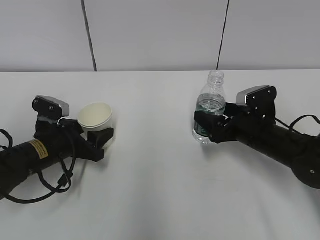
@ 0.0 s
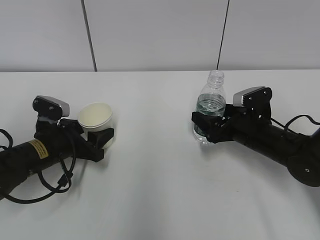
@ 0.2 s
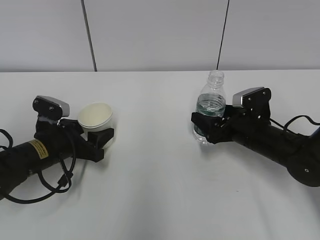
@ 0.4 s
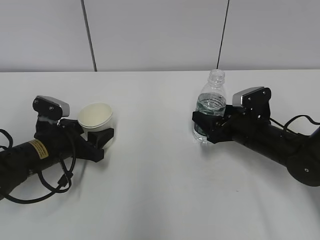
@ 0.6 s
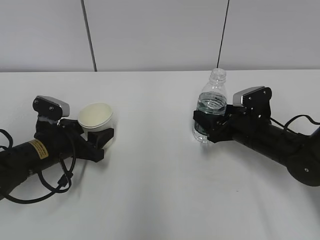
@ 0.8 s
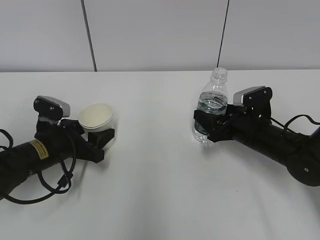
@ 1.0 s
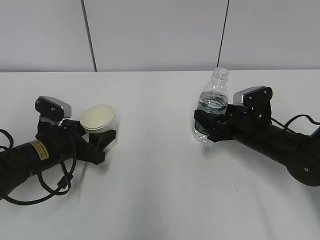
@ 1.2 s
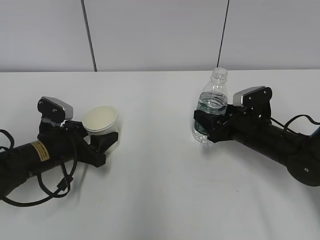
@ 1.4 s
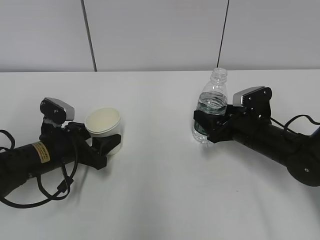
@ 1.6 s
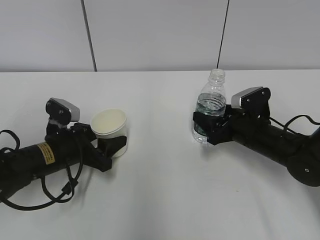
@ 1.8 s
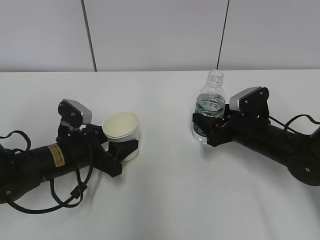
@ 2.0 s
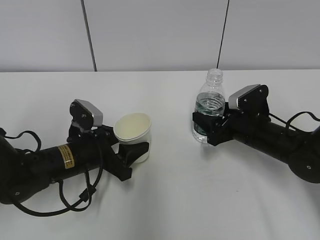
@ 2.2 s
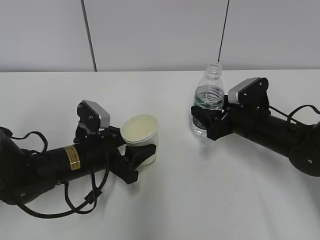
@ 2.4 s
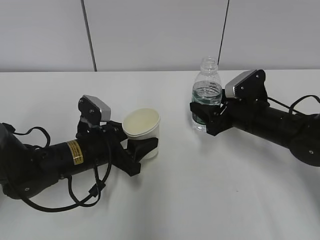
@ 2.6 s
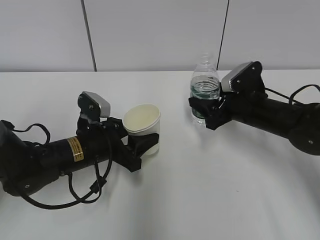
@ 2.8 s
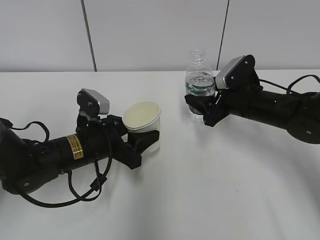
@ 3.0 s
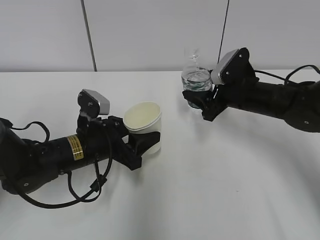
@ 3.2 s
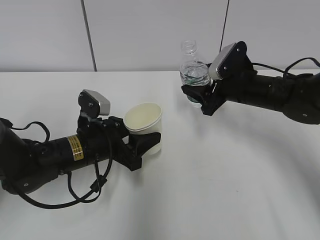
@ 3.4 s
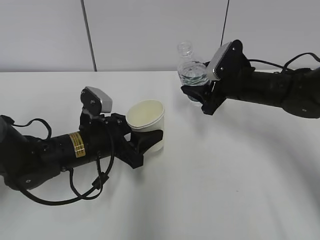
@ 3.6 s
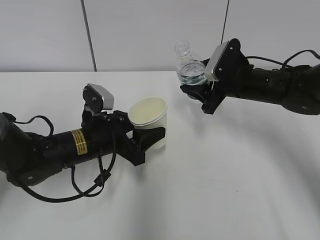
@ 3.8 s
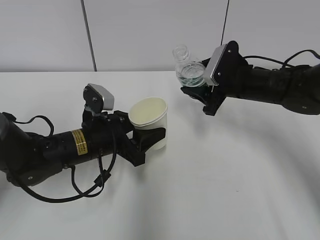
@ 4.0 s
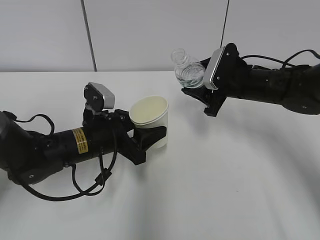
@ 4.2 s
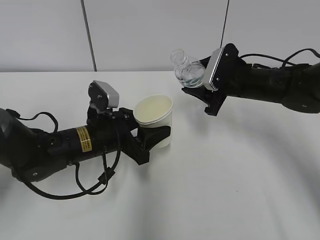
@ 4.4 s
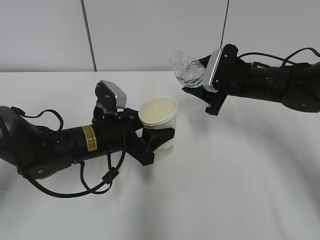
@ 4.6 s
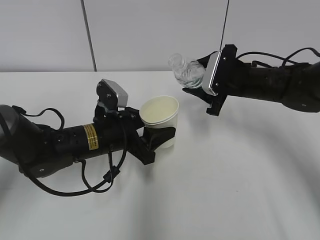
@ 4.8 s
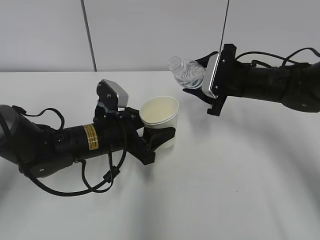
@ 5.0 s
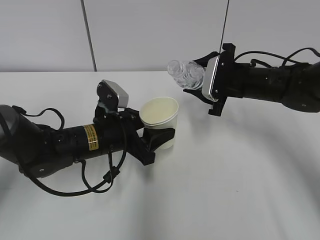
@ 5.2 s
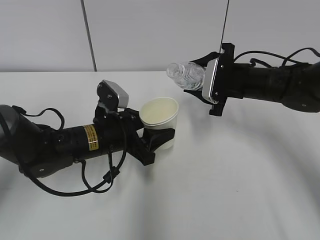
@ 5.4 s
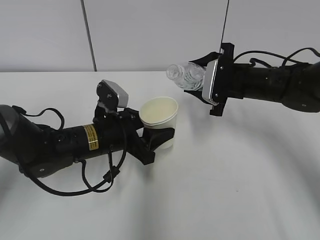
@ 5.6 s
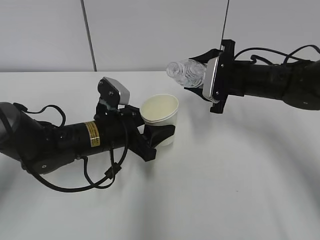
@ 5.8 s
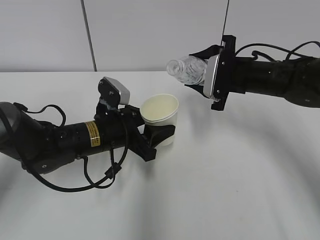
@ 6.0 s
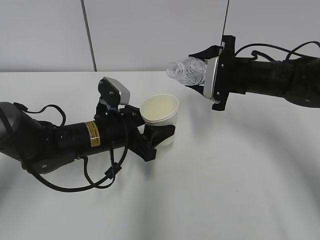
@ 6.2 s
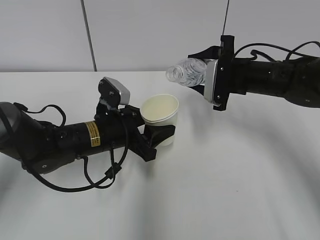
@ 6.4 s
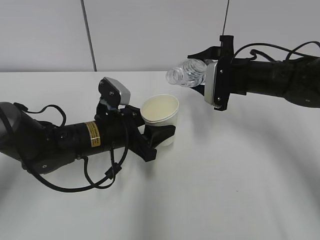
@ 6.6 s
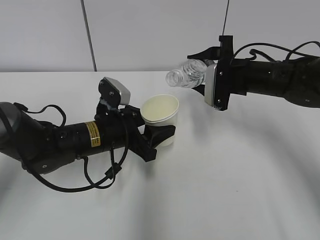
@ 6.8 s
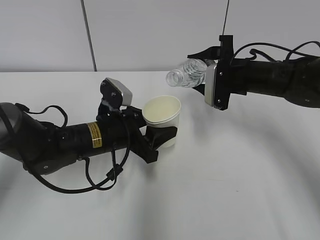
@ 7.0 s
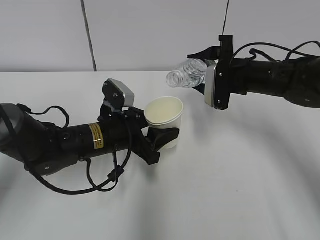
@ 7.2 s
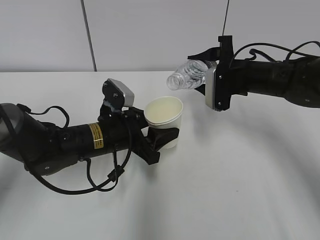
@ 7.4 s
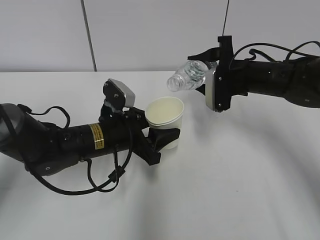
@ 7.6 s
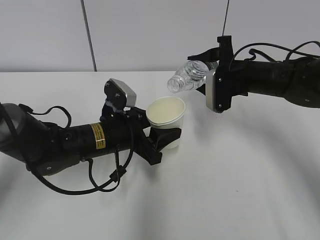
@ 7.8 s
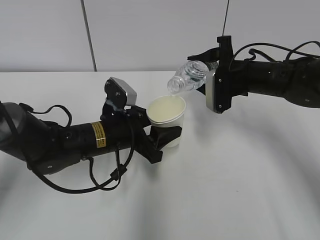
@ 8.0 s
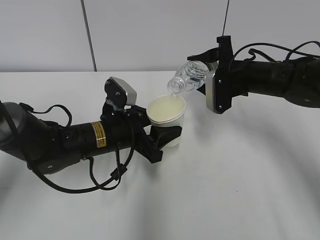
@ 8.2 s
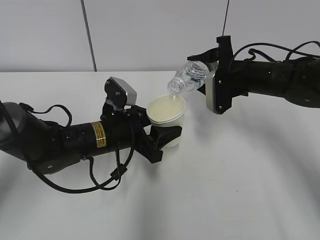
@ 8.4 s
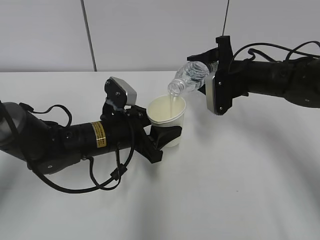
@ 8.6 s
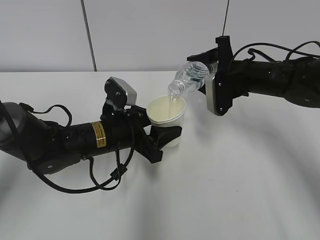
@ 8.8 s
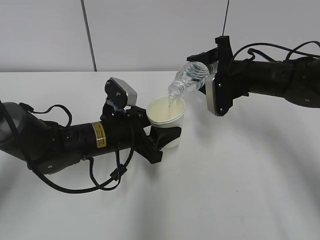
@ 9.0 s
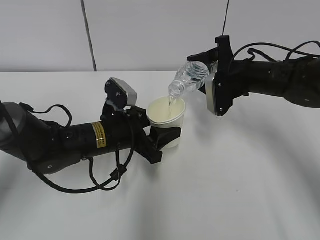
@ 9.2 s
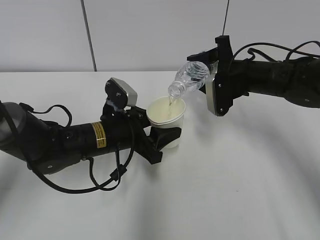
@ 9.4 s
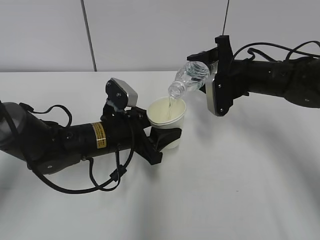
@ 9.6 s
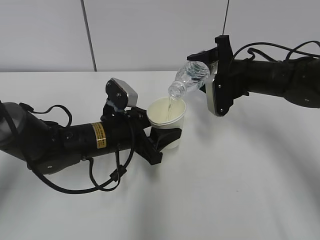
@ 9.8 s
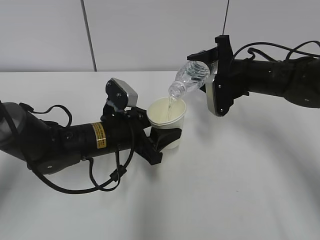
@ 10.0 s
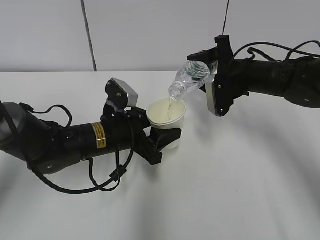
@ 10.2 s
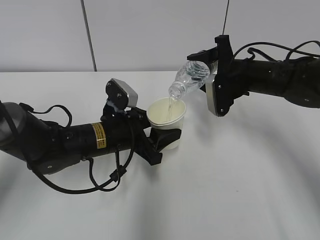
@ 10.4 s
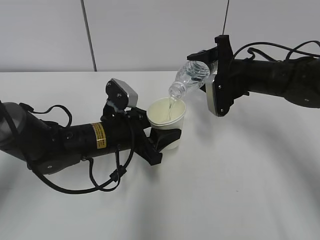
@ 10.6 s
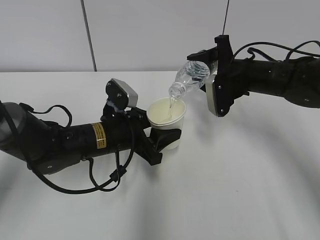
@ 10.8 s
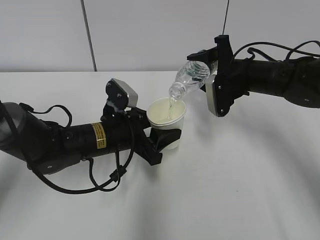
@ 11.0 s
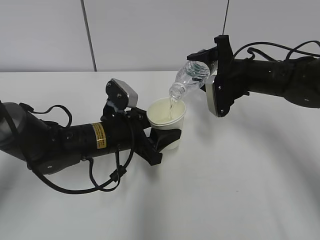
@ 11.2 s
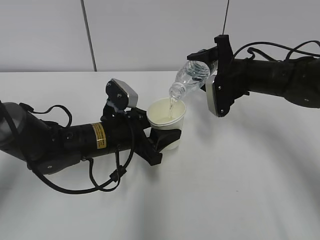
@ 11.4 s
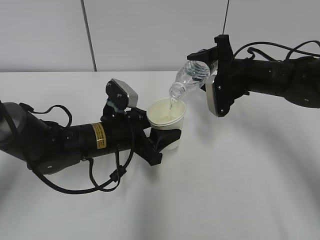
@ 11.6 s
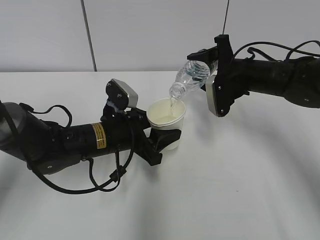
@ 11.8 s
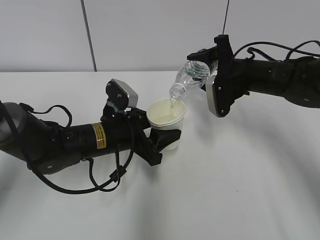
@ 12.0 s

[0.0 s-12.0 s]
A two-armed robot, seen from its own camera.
Step, 0.0 to 4.8 s: Lift the paper cup with the left hand.
Step, 5.0 to 8.8 s: Fill water with the left hand.
Step, 5.0 to 8.8 s: Pour water with the right hand.
0.0 to 1.6 s: The right gripper closes up.
1.6 to 3.0 s: The left gripper goes about 5 cm to the right. Meanwhile the right gripper is displaced upward by roughly 5 cm.
6.0 to 7.6 s: The grippers move only a little.
7.6 to 9.0 s: The grippers move only a little.
9.0 to 10.4 s: The two grippers keep their place.
10.4 to 12.0 s: Both grippers stay put.

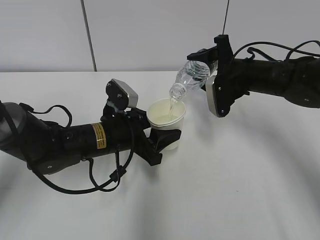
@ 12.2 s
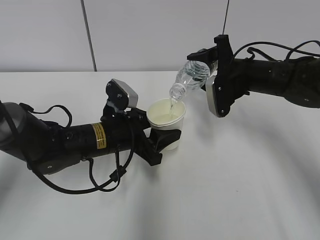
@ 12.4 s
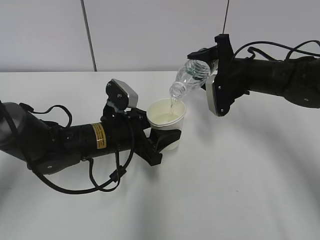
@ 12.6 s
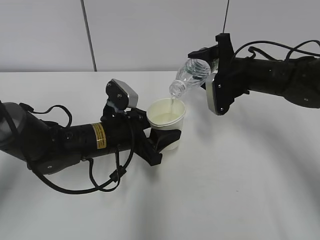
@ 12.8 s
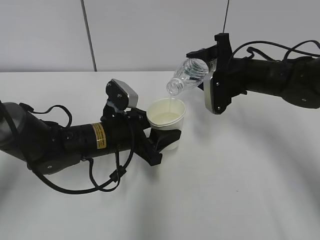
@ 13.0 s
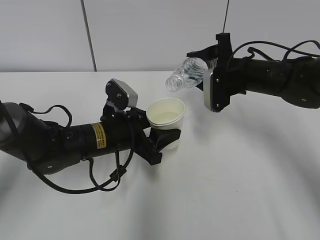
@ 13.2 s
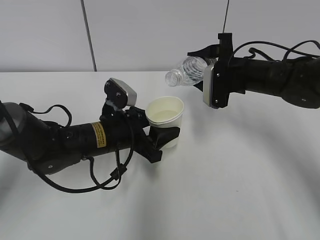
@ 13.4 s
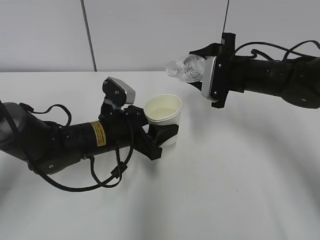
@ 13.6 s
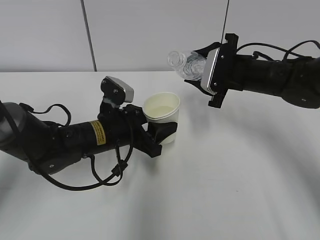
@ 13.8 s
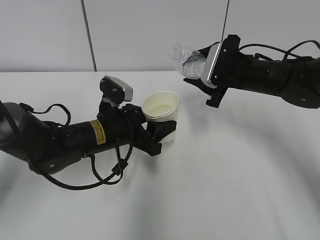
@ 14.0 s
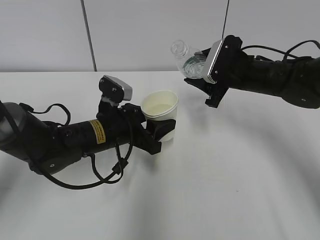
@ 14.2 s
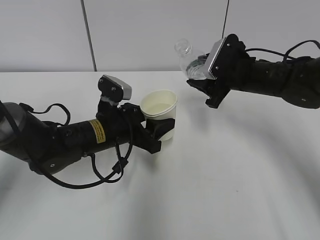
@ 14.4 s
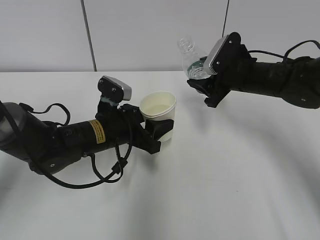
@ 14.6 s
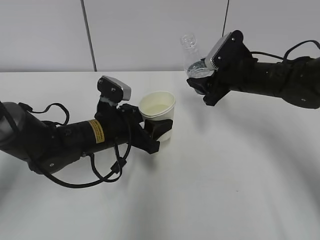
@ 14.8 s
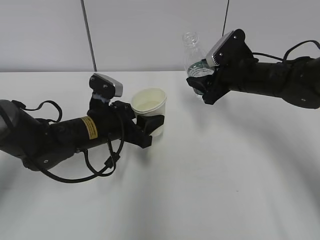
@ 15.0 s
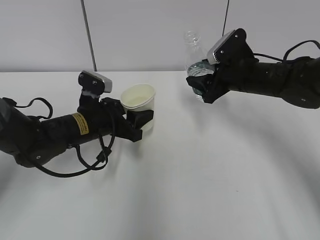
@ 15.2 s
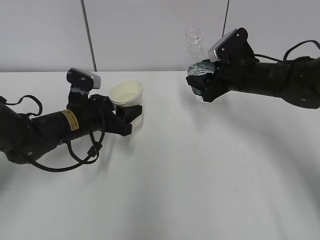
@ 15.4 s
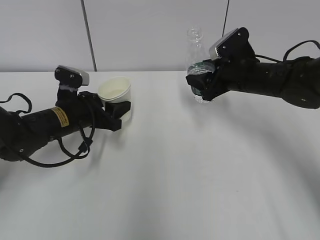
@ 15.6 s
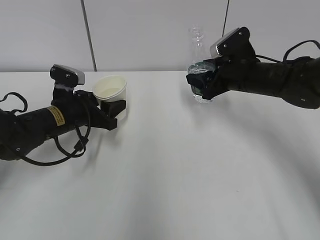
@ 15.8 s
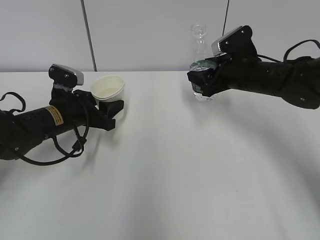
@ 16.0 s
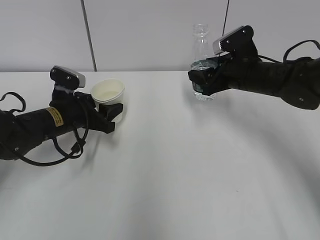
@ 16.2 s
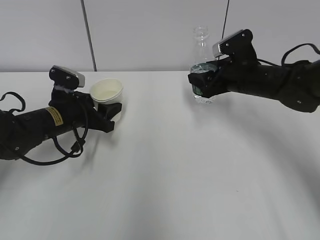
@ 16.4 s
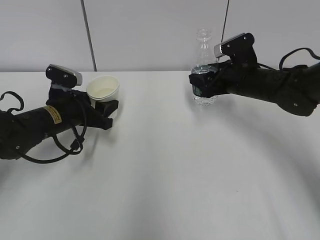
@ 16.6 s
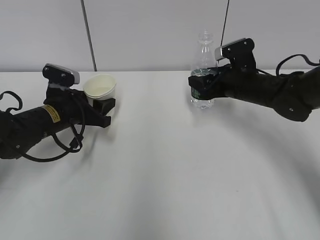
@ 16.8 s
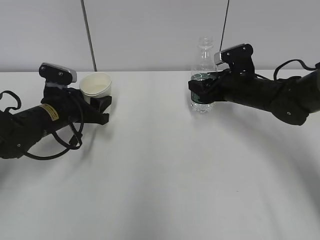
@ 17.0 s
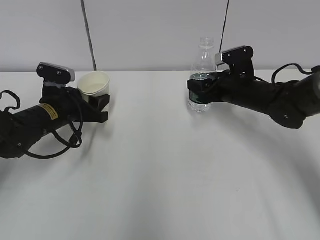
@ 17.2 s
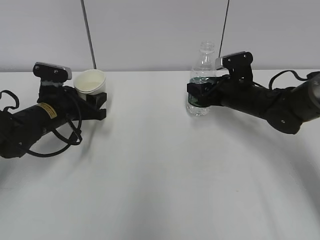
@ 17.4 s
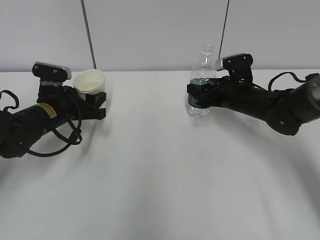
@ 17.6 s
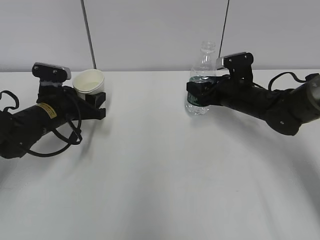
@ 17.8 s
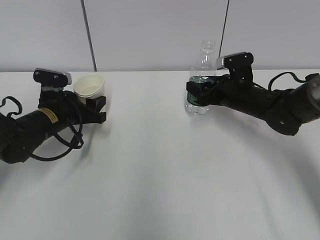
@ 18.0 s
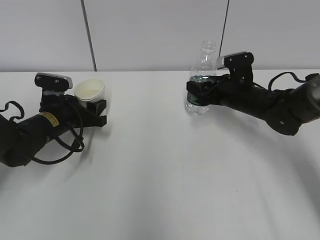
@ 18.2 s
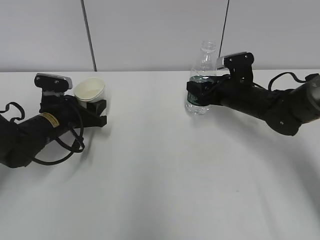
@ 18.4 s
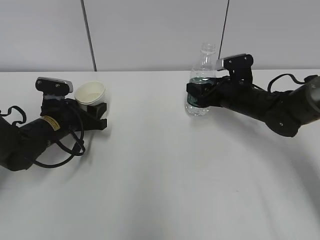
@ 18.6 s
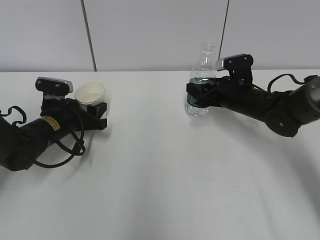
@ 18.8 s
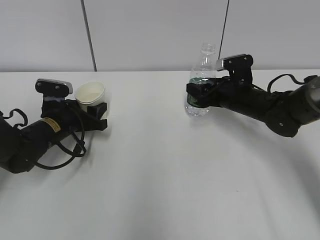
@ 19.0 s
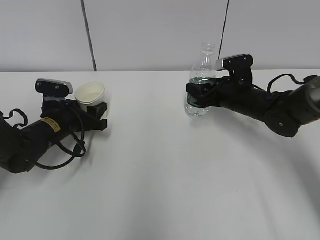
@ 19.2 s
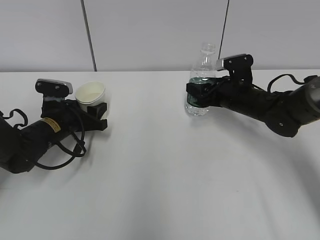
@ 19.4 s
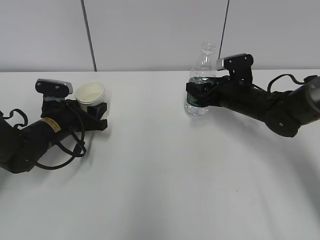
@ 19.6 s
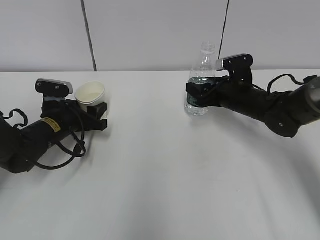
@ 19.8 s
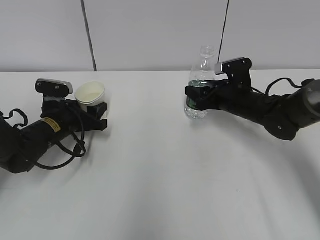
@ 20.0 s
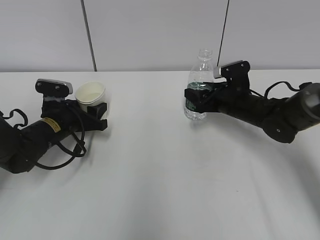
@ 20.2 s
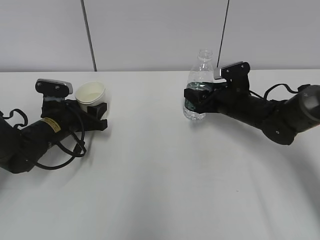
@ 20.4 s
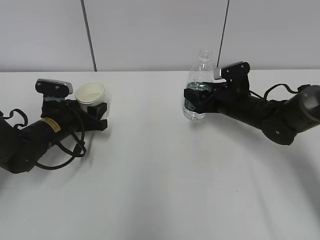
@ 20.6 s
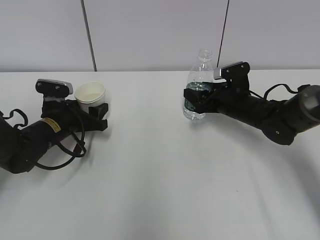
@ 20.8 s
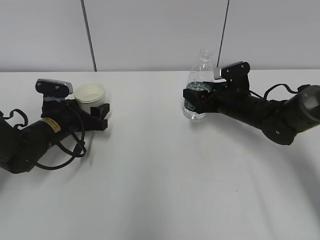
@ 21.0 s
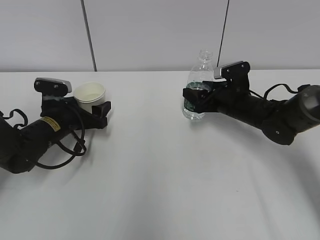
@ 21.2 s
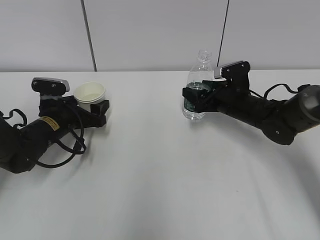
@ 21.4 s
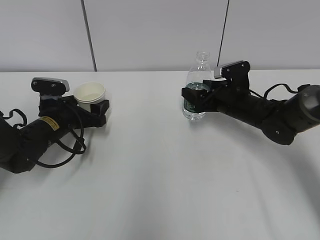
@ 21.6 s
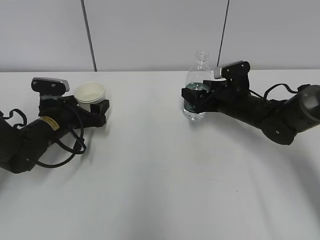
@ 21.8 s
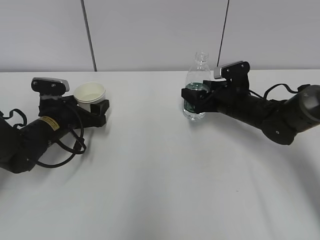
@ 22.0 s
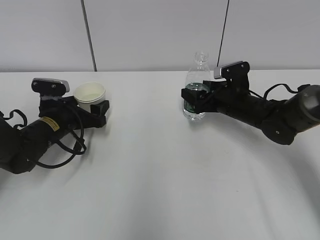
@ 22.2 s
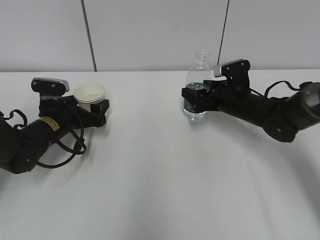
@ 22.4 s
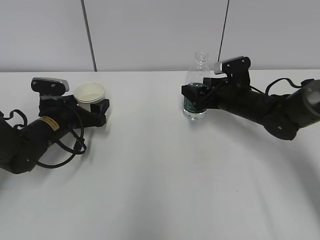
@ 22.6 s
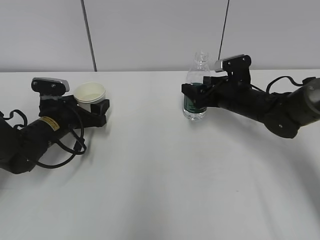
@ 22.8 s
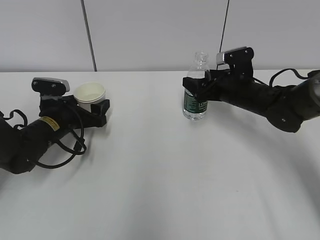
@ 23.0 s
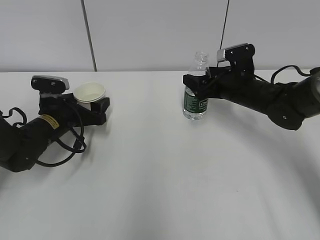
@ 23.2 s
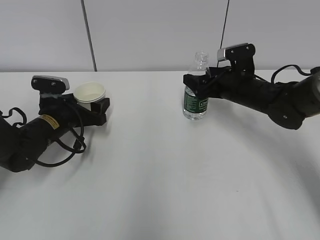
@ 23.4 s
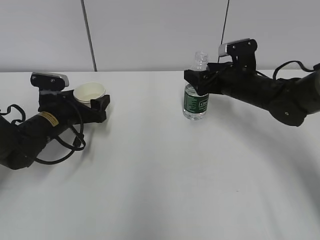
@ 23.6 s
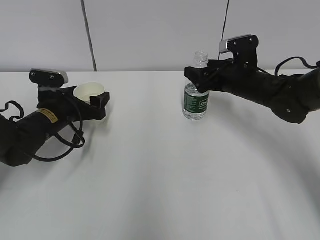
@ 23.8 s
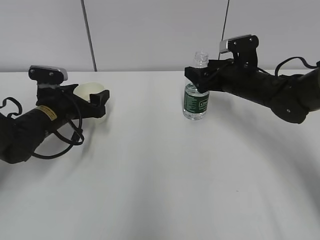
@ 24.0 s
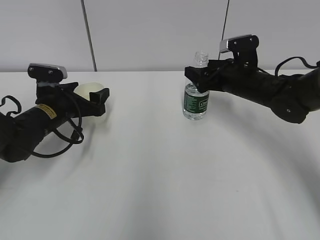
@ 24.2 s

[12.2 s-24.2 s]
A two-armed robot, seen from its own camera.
Step, 12.2 to 15.4 s: Place the paper cup with the left hand.
Step, 15.6 to 16.8 s: Place the water bottle with the right hand.
15.2 to 16.6 s: The left gripper moves to the left, some 5 cm.
16.6 to 18.2 s: The grippers make only small movements.
18.2 to 19.8 s: Neither gripper changes place.
19.8 to 21.2 s: The right gripper opens its fingers. Meanwhile the left gripper opens its fingers.
21.2 to 22.6 s: The right gripper opens.
22.6 to 24.2 s: The grippers move only a little.
